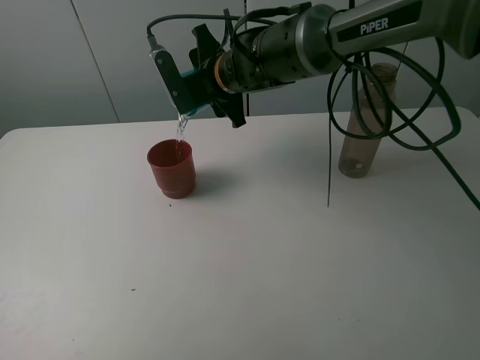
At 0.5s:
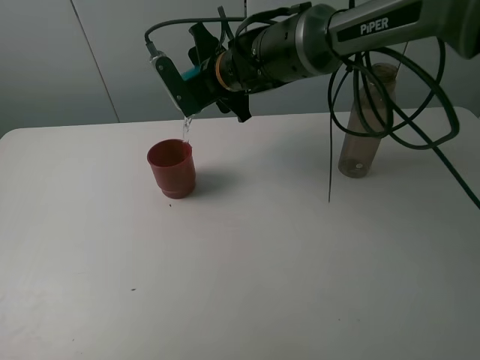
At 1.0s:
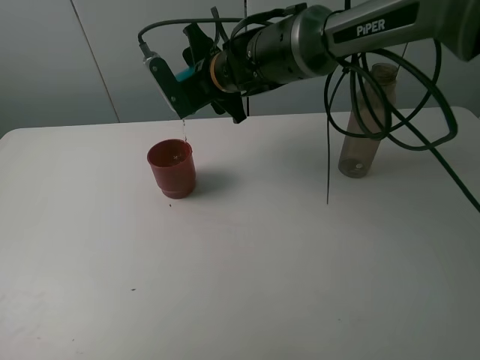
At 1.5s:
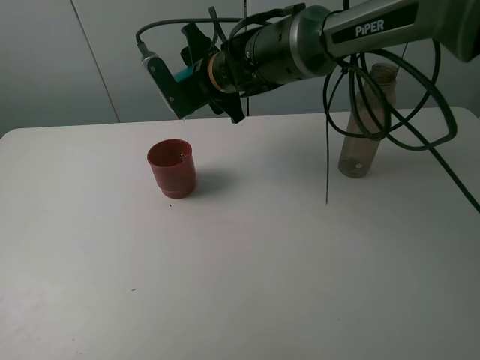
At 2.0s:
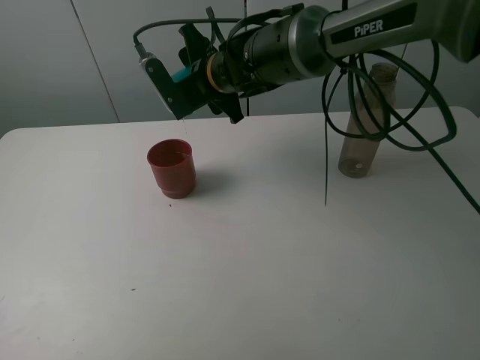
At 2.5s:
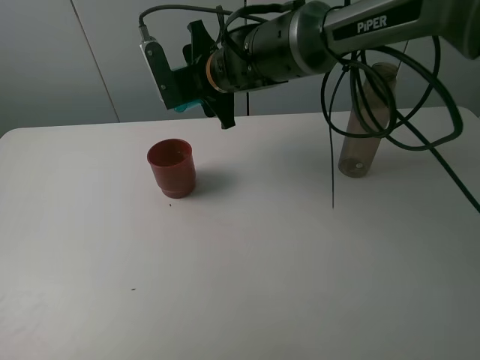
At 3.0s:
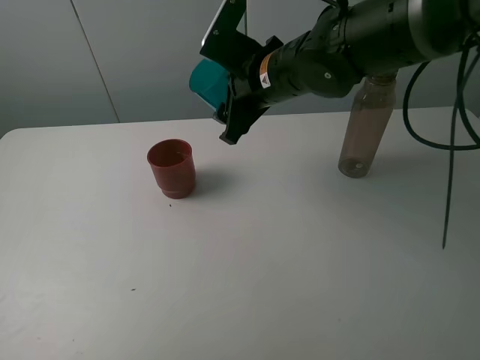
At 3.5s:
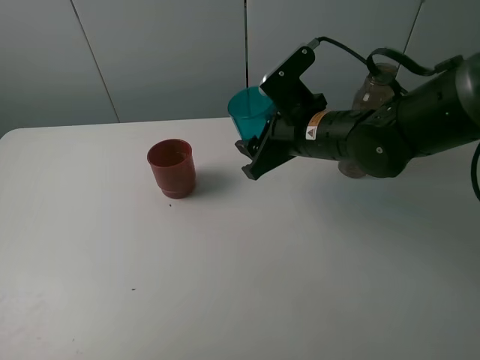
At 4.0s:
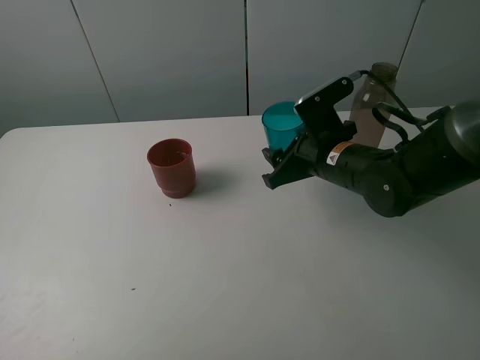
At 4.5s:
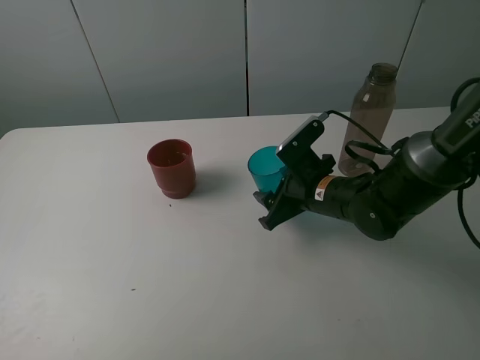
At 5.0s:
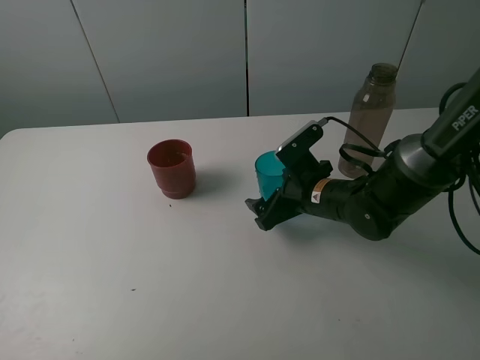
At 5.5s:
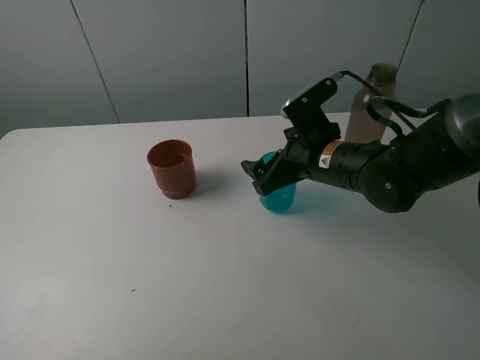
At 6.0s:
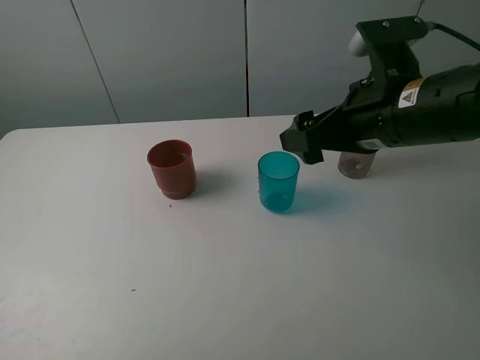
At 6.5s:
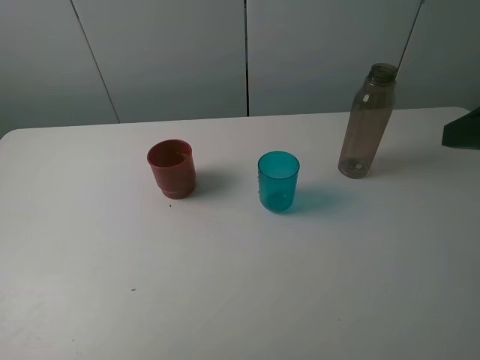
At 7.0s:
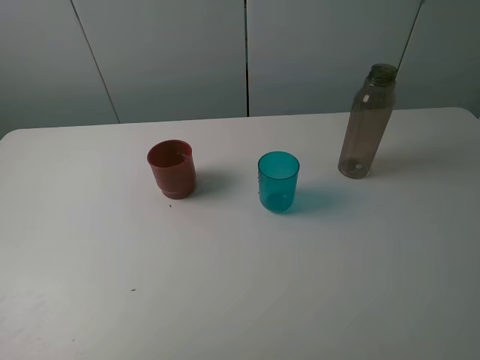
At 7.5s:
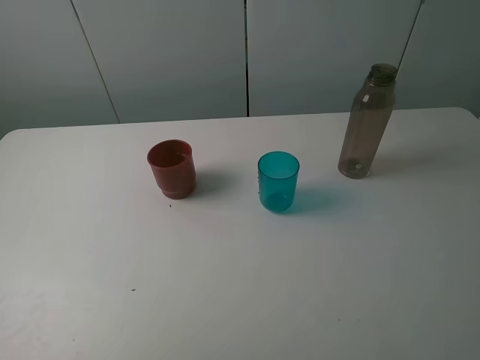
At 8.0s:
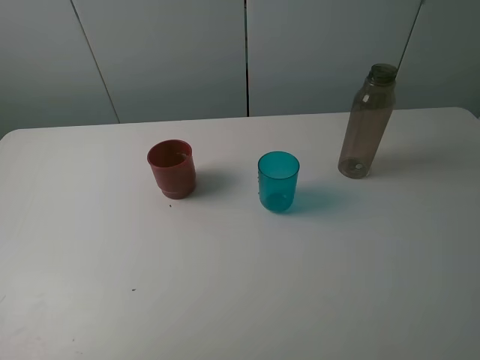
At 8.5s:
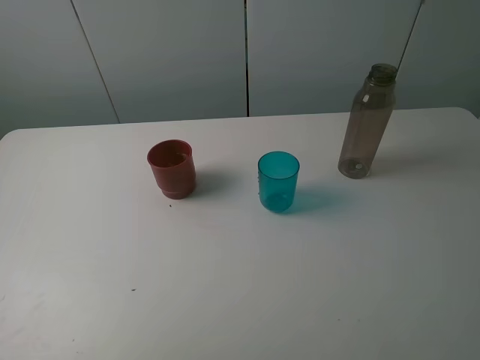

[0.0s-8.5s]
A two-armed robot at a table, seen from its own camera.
Task of the whole recording: pick up the bottle and pour water into the cup, then pick up the cup containing water and pour it into another cup.
Step, 0.0s to 2.5s: Pour water from blue cup to red cup with the right gripper.
Step, 3.0s to 5.0s: Place the blue cup with the right gripper.
0.0s to 2.0s: There are only small adjustments of the grippers.
2.0s to 4.0s: The right gripper shifts approximately 20 cm to the right, backward and downward.
4.0s to 6.5s: The right gripper is displaced upward, backward and to the right by some 30 cm, and opens its fingers.
6.5s to 8.5s: The right gripper travels backward by approximately 15 cm.

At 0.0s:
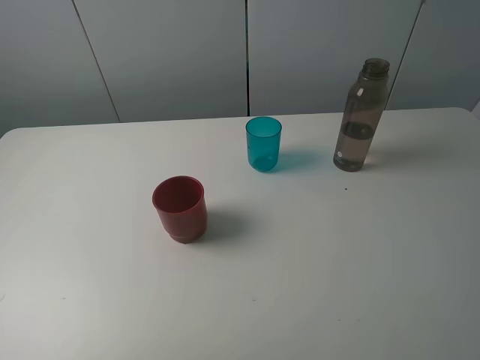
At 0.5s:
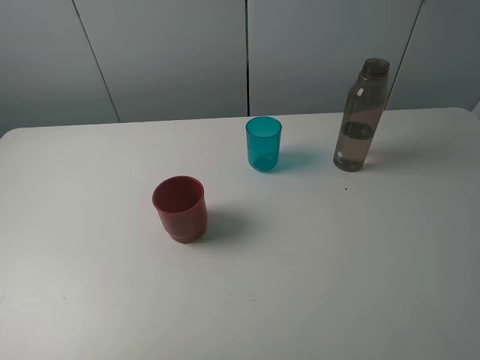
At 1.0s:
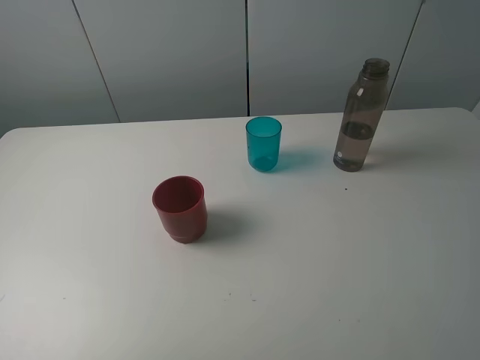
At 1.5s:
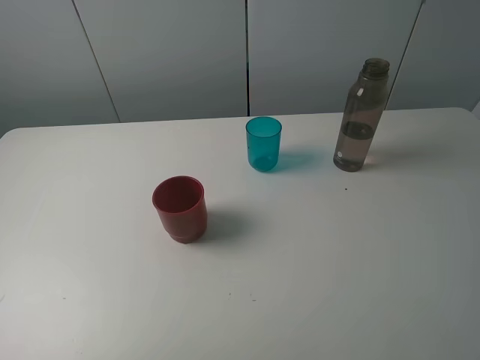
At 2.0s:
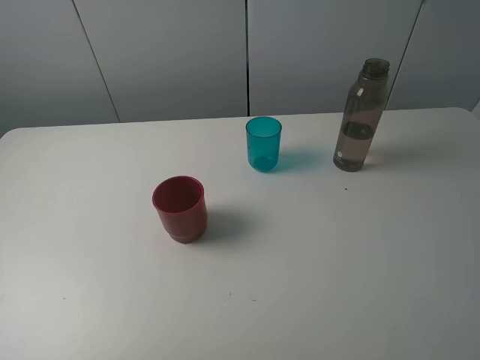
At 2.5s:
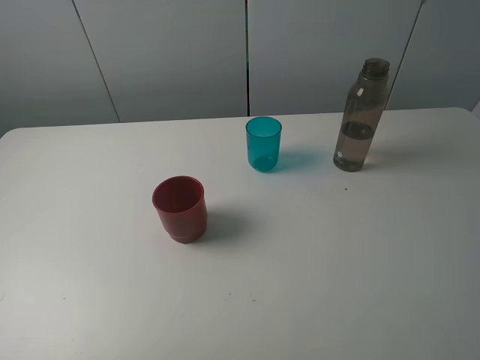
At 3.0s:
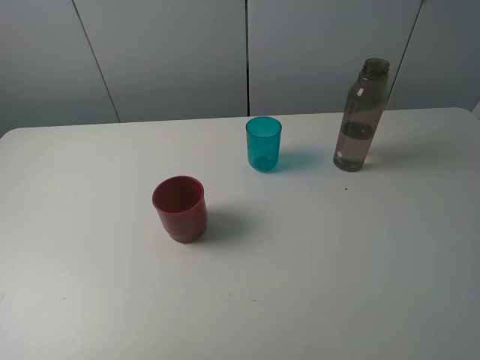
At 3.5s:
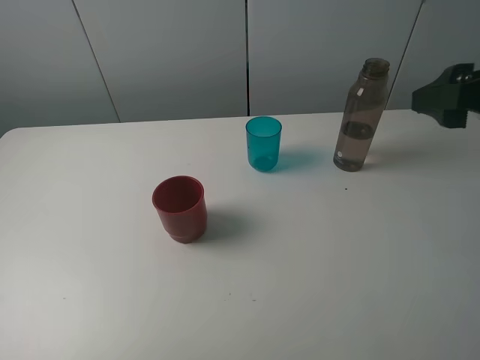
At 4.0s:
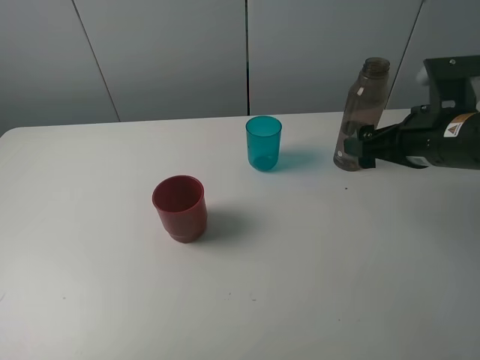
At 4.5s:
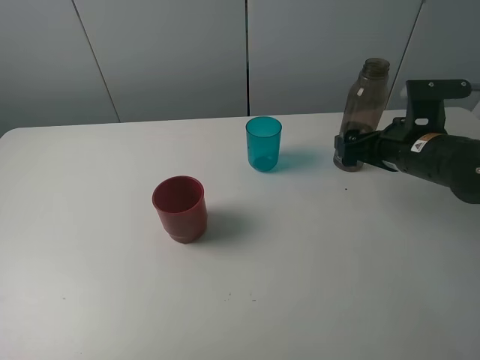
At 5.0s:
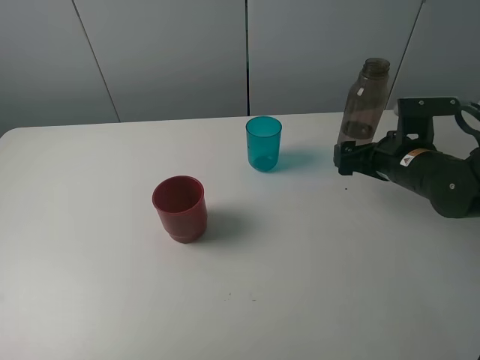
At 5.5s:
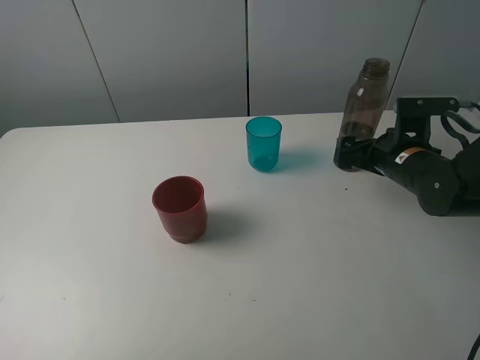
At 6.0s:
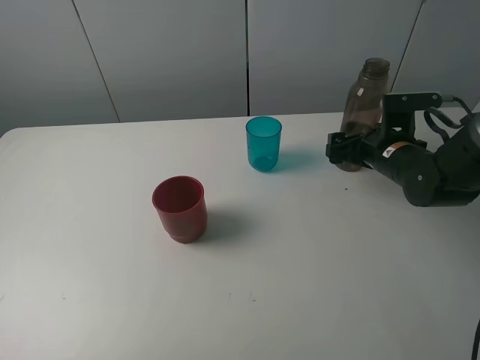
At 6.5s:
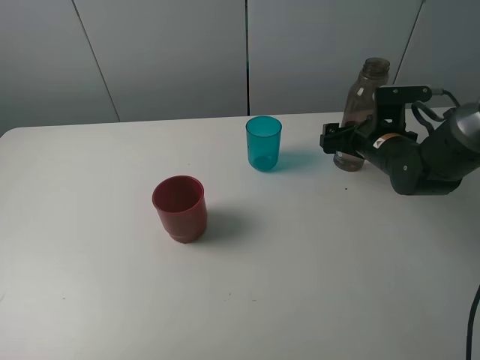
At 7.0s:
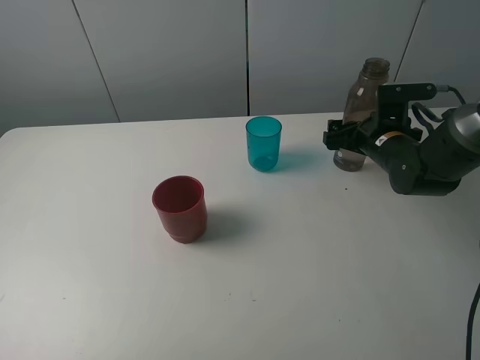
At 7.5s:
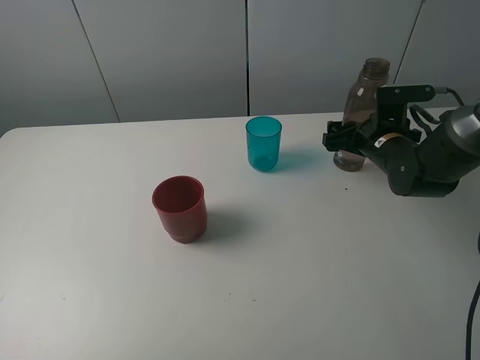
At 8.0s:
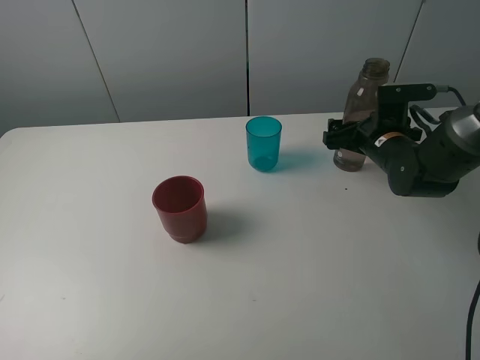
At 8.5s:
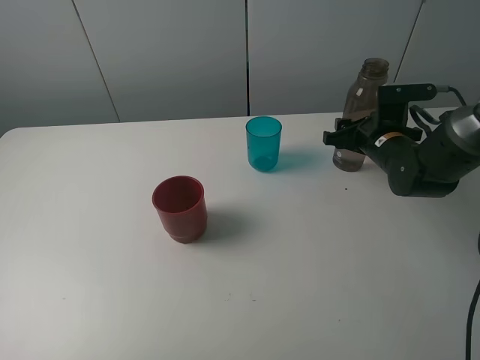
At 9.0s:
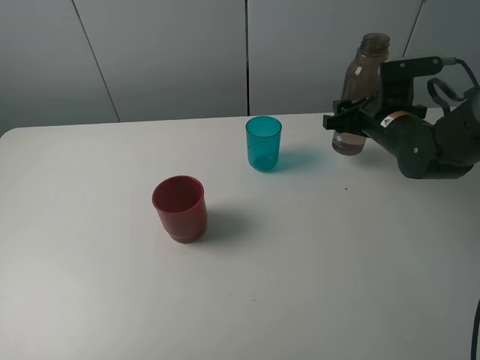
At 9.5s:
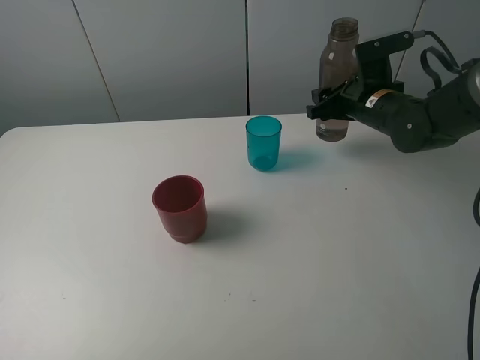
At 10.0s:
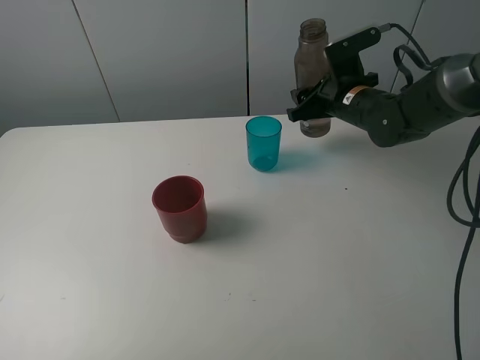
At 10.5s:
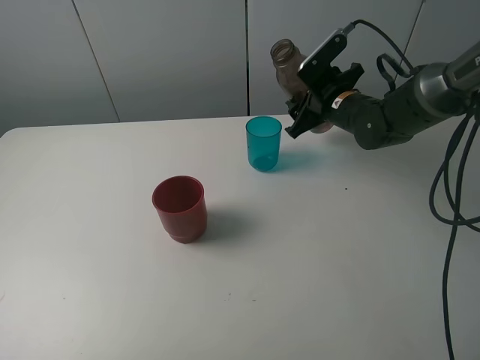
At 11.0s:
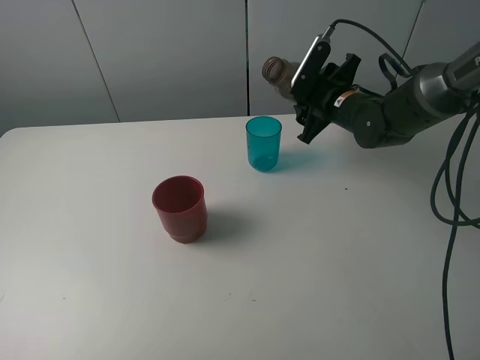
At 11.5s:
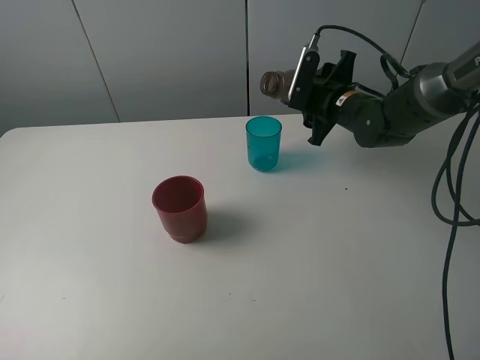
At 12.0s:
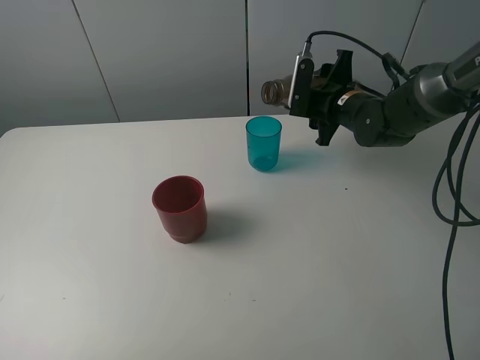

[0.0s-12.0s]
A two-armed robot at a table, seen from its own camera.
Task of the whole recording: pick up the bottle and pour water into the cup, then pick up the cup containing water and pour it into another cup.
Step, 0.0s to 8.0s: Grasp the brown bottle with the right gripper.
0.0s to 2.0s: Neither gripper changes place.
2.0s to 4.0s: The right gripper is displaced forward and downward by approximately 30 cm.
4.0s to 6.0s: The right gripper goes about 10 cm downward and forward.
6.0s to 8.0s: The grippers move only a little.
8.0s to 10.0s: The right gripper shifts roughly 10 cm to the left and upward, and closes up.

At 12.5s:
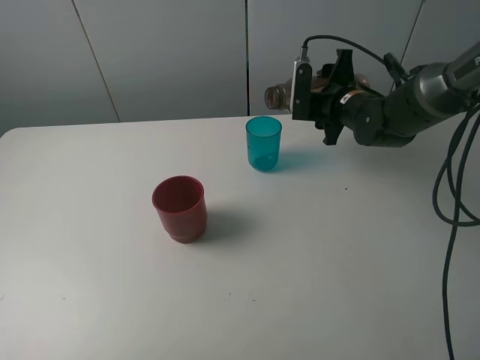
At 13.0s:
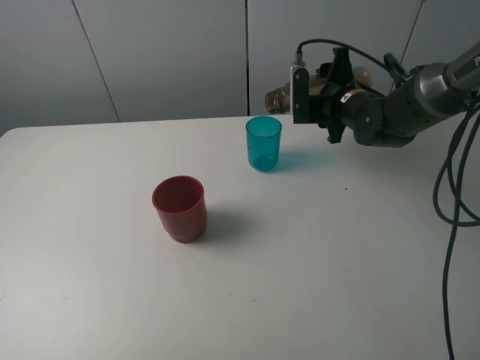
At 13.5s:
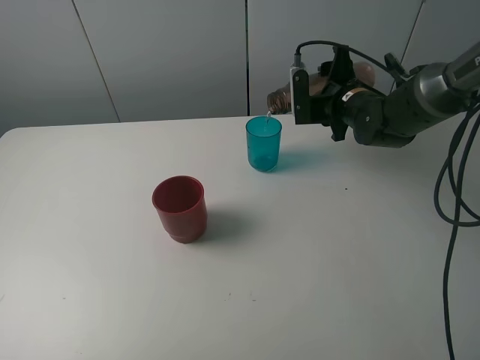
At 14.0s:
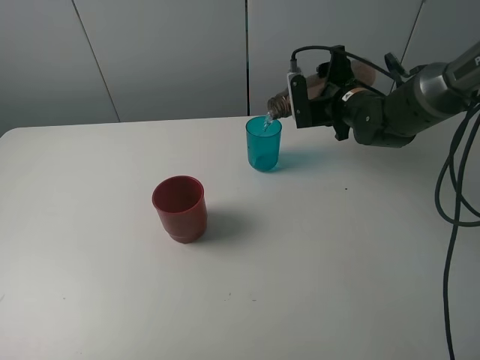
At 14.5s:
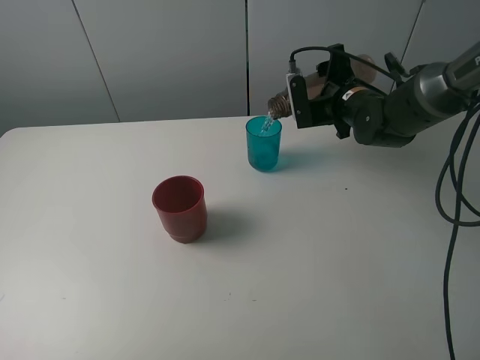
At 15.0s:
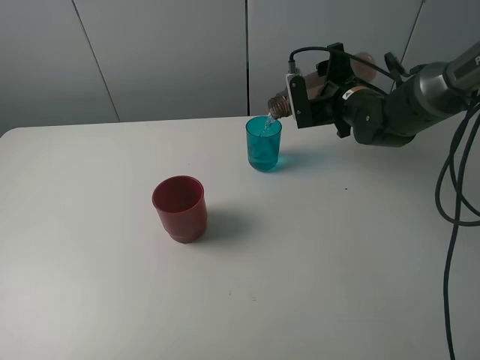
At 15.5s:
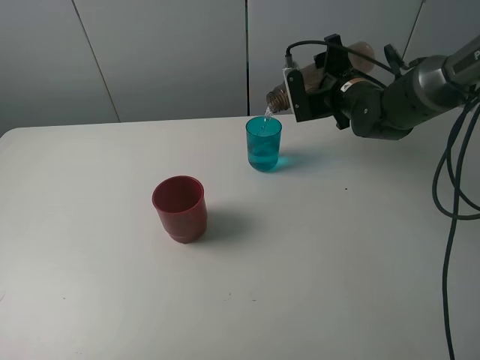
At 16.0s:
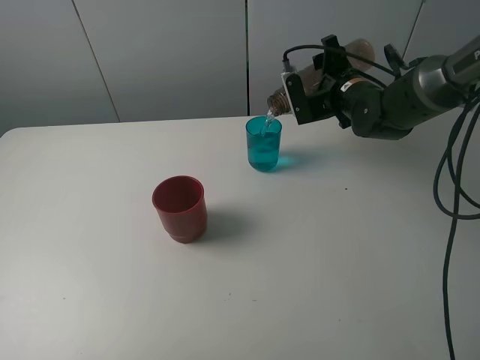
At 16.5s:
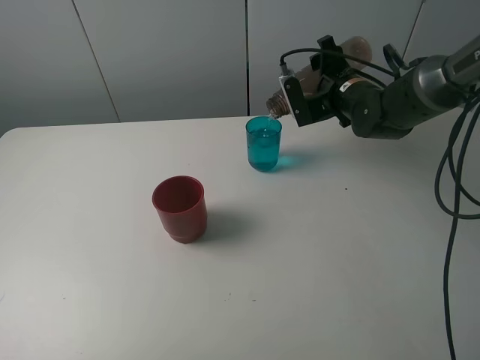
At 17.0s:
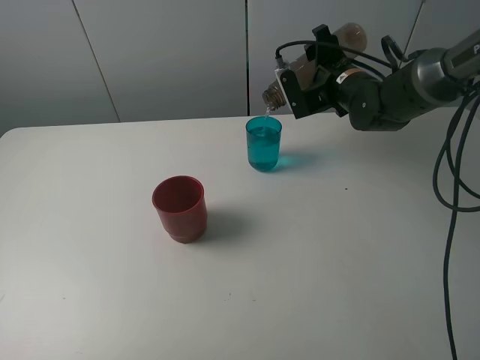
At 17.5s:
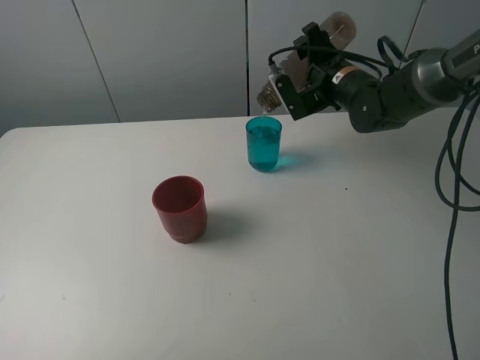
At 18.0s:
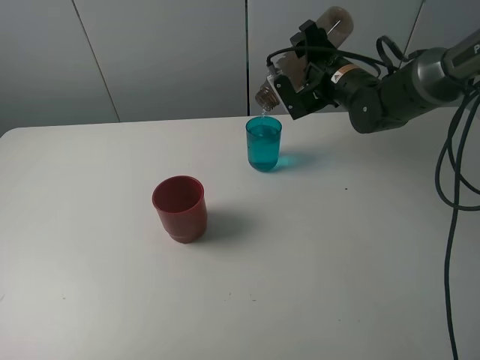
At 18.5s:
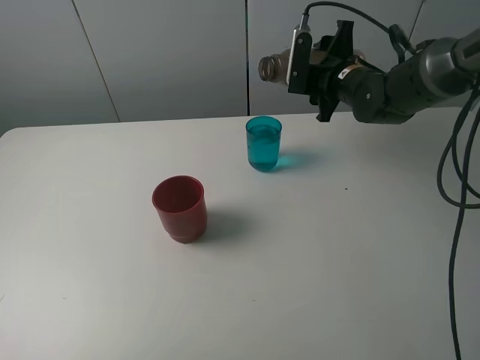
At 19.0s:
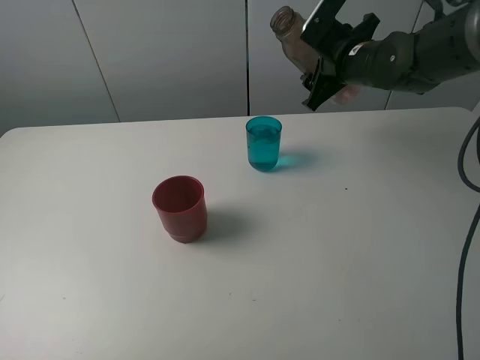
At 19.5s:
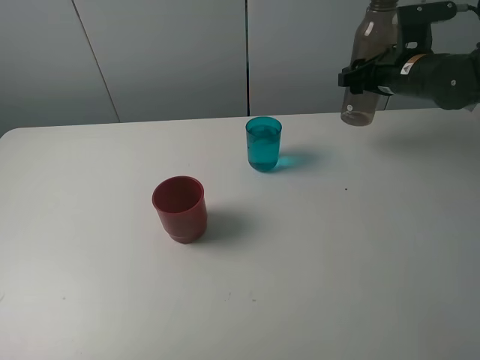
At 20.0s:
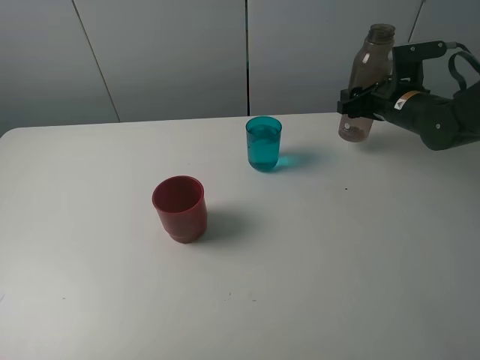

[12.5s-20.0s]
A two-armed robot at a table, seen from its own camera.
Task of the whole recording: pick up the bottle and pour water into the cup, then pick up the cup containing water and pour it into another cup.
Step, 12.5s to 18.0s: Pour water from brown bottle to blue cup with the right gripper.
12.5s to 14.5s: The grippers move only a little.
14.5s to 16.5s: The grippers move only a little.
16.5s to 18.0s: There are only small adjustments of the grippers.
18.0s to 20.0s: The right gripper is displaced to the right by some 10 cm.
